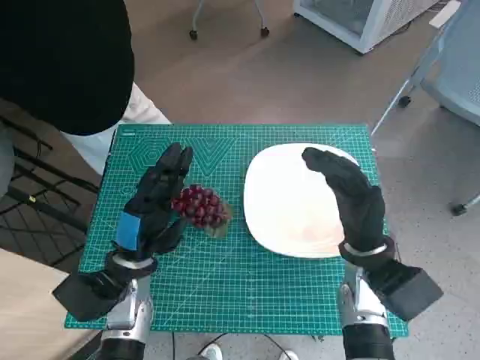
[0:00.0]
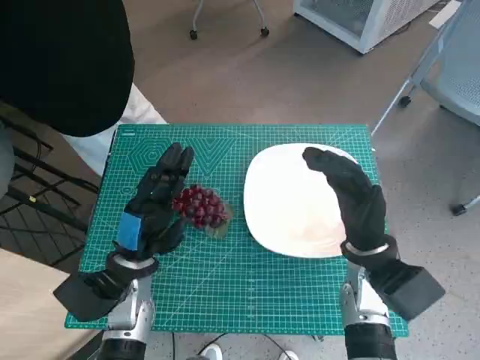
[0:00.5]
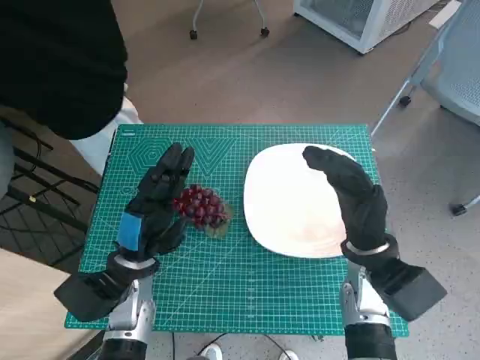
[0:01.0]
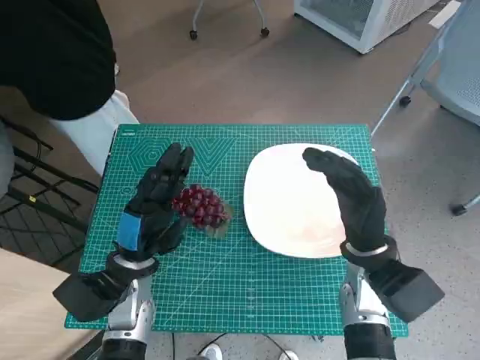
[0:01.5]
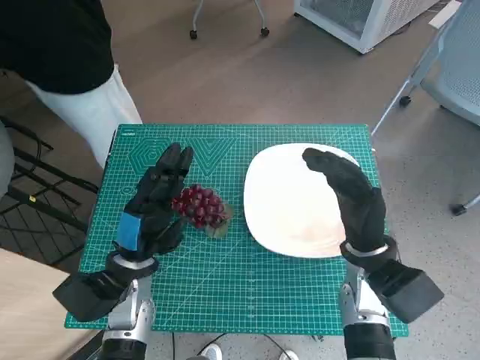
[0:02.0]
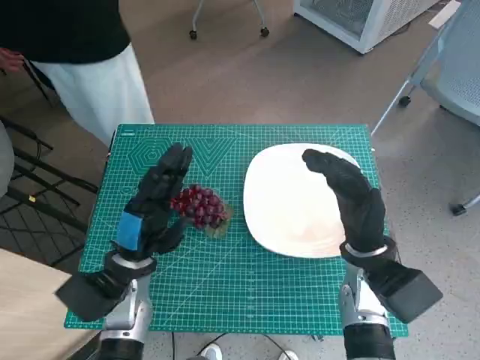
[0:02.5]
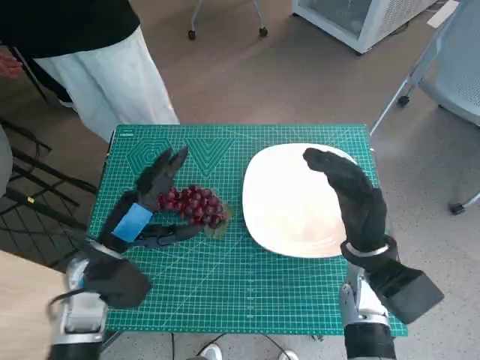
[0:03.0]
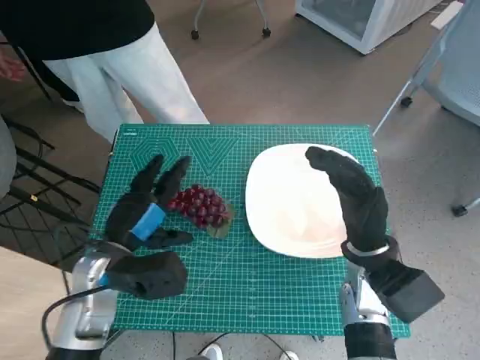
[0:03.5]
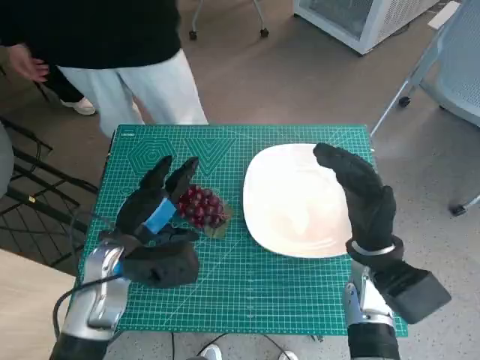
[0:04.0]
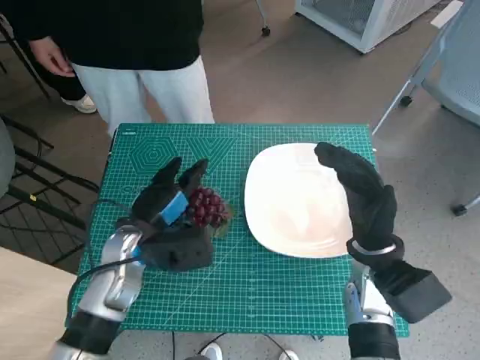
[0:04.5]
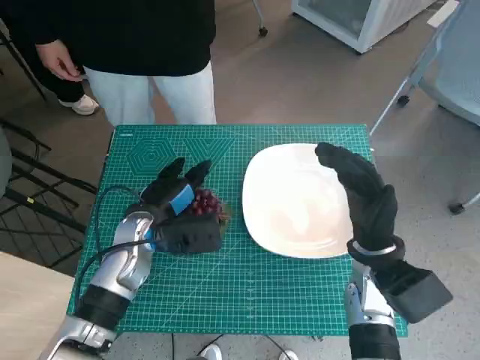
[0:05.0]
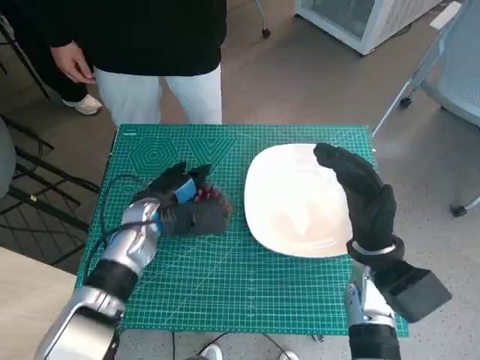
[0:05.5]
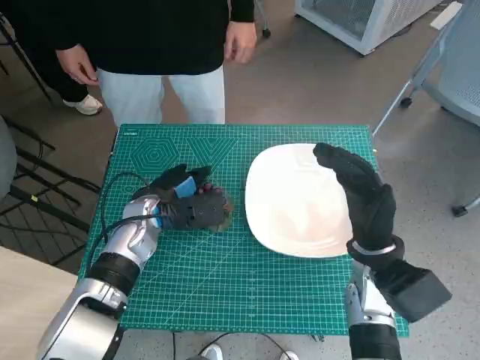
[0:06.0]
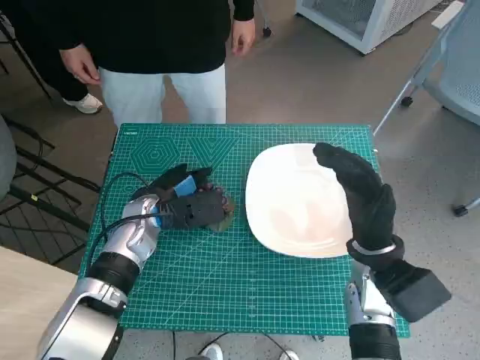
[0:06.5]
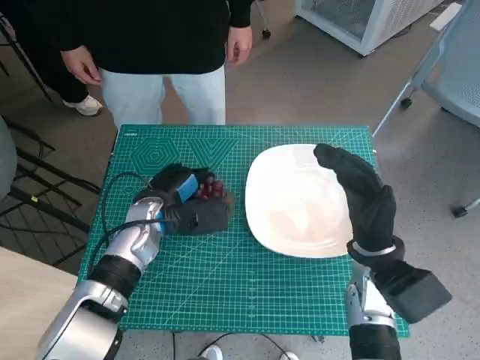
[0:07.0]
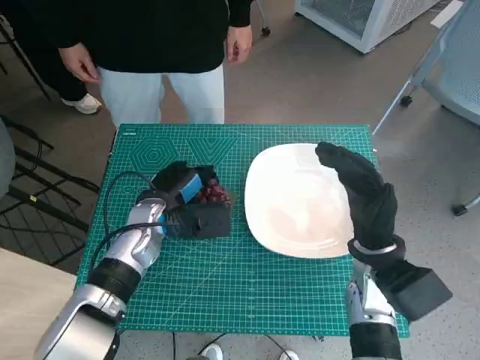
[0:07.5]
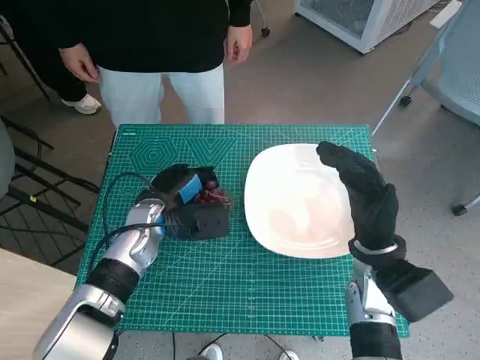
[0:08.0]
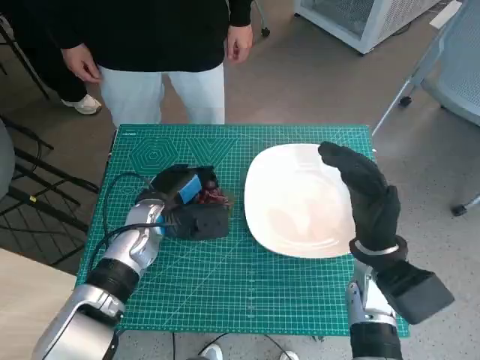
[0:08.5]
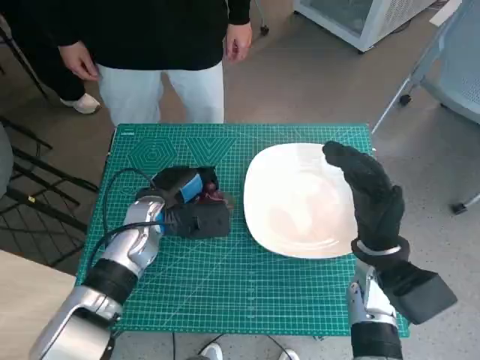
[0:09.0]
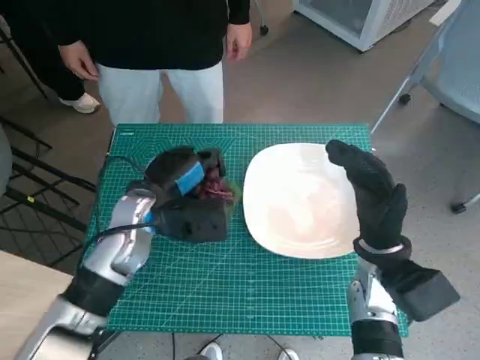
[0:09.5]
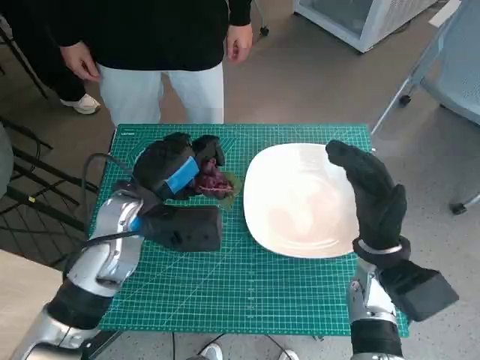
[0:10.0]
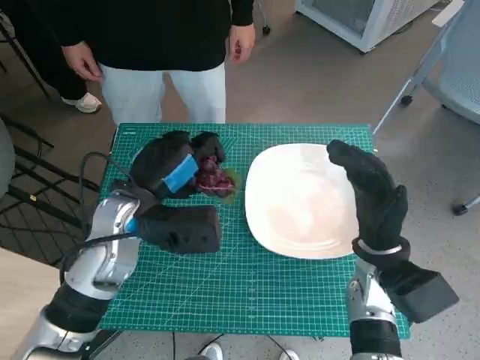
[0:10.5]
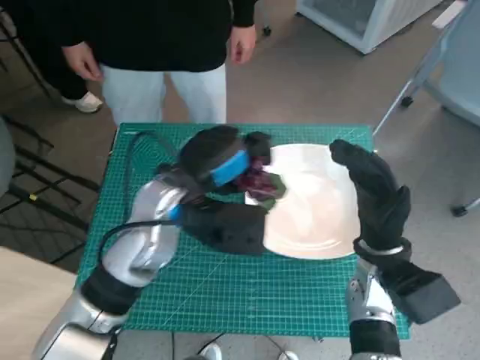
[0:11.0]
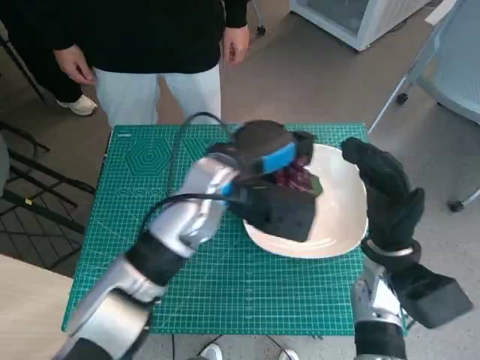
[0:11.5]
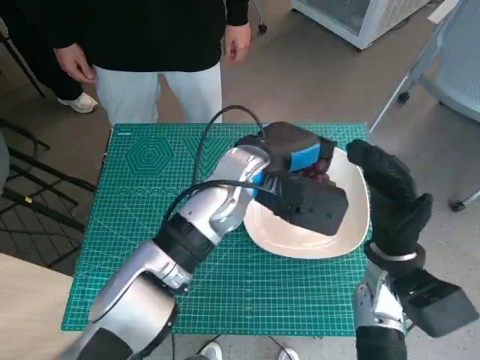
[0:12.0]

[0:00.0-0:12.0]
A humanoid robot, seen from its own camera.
Task of the whole recording: Pick up the grapes and put them on the plate.
Step, 0:00.0 to 0:06.5: Grasp the grapes with left hand.
0:04.0 to 0:06.0: The left hand heads forward, covering some 10 cm.
0:06.0 to 0:08.0: There are only small adjustments of the hands.
0:08.0 to 0:10.0: The left hand goes roughly 10 cm upward.
0:10.0 to 0:12.0: The left hand travels to the right by roughly 15 cm.

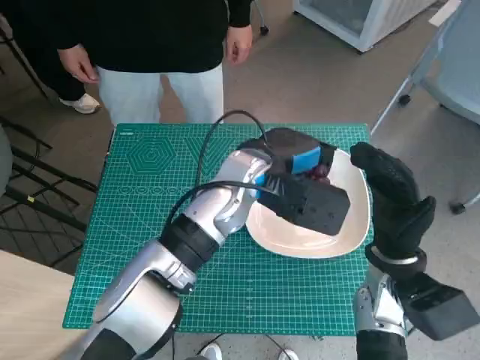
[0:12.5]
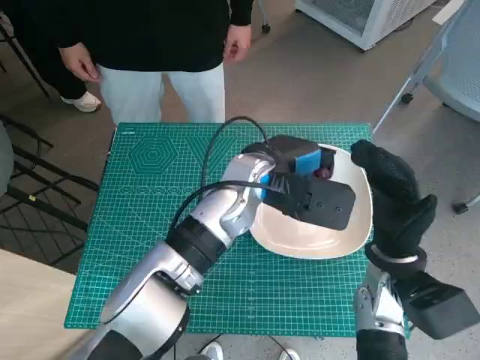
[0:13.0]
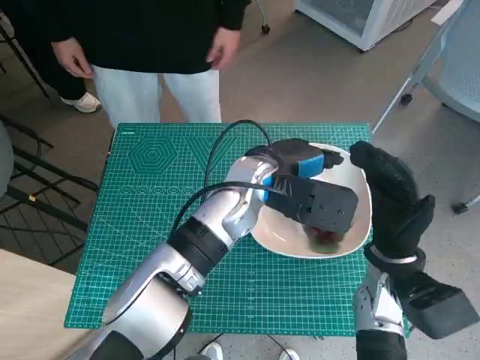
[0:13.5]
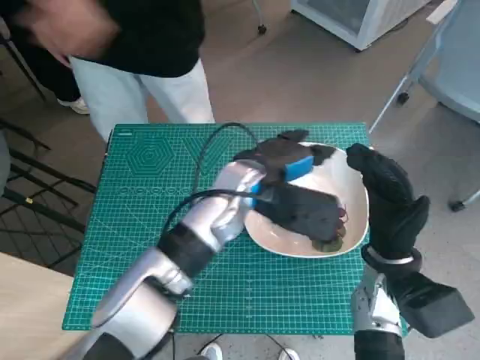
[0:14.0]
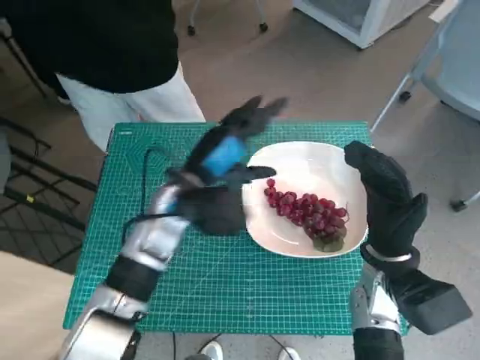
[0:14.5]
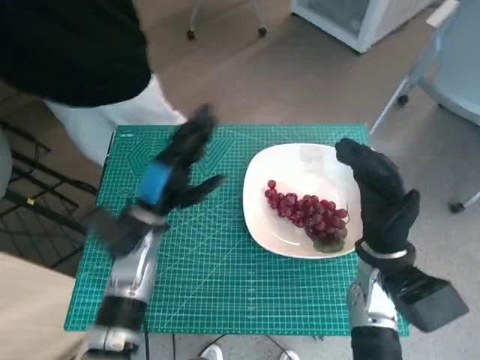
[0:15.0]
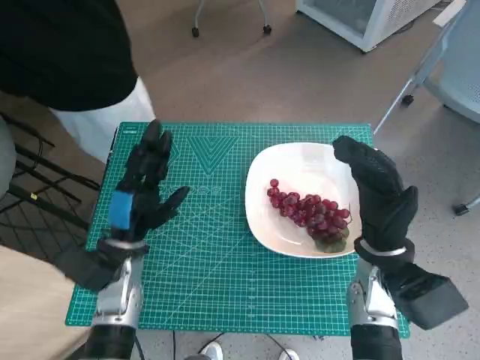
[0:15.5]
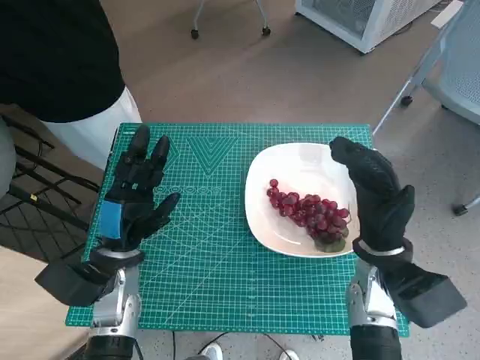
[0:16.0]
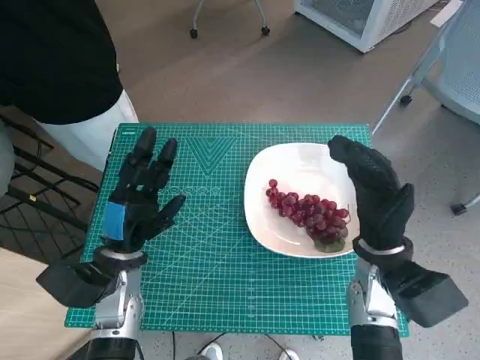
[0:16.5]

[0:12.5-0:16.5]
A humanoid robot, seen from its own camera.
Task of the whole recording: Pick up the grapes and put them on the plate.
0:12.5 to 0:14.5: The left hand moves to the left, roughly 10 cm.
0:14.5 to 0:16.5: The left hand is displaced to the left, downward and backward by some 15 cm.

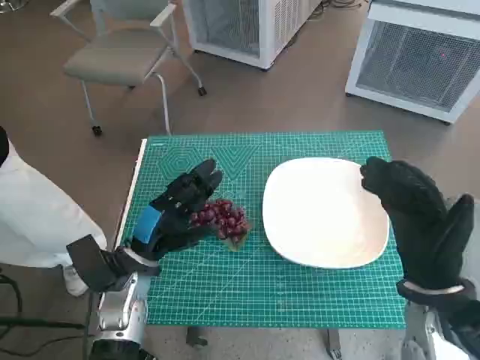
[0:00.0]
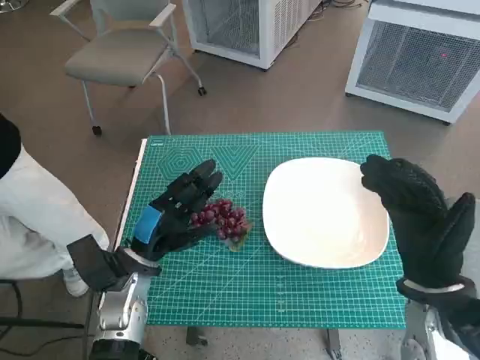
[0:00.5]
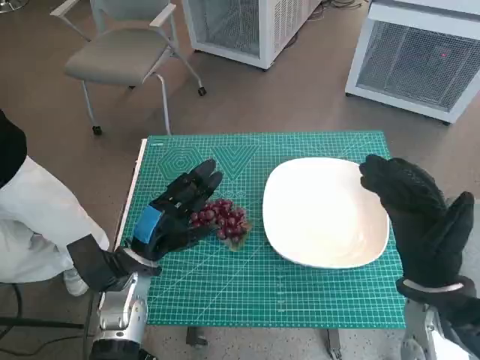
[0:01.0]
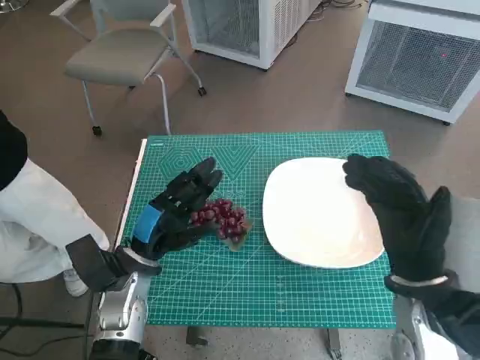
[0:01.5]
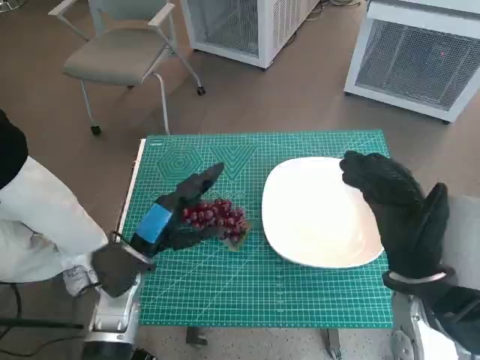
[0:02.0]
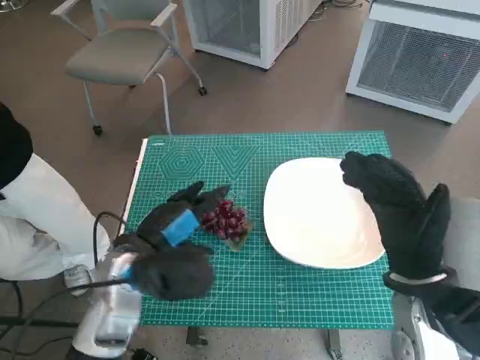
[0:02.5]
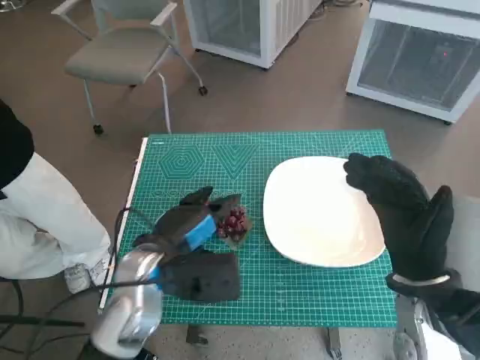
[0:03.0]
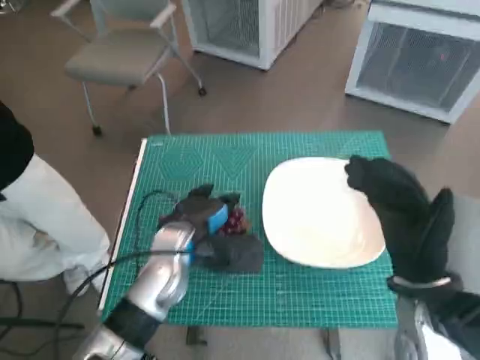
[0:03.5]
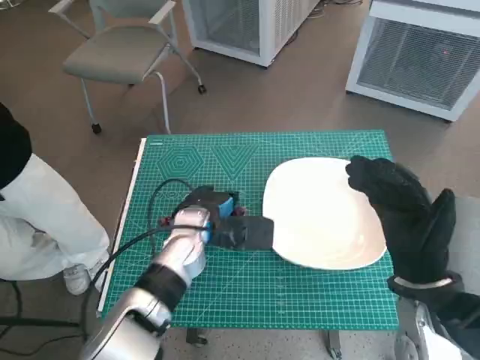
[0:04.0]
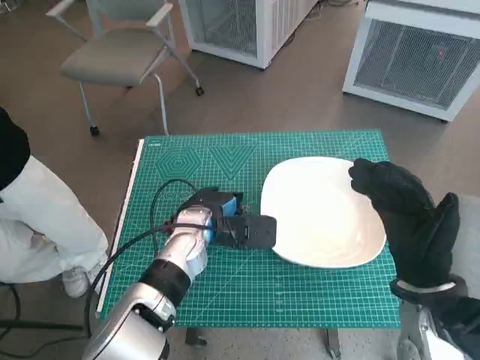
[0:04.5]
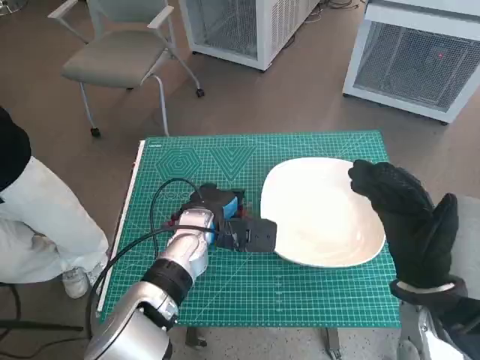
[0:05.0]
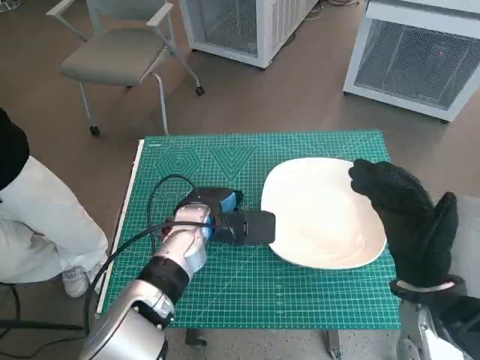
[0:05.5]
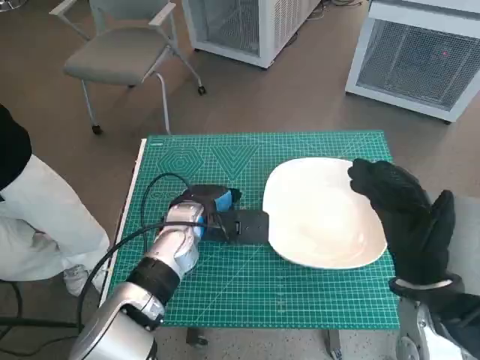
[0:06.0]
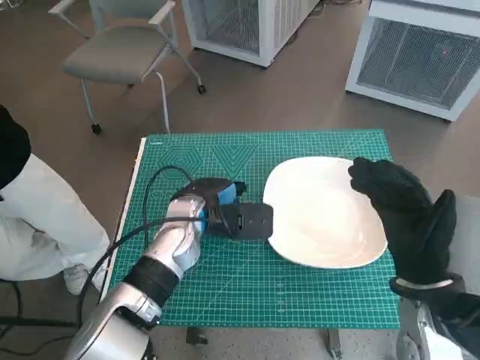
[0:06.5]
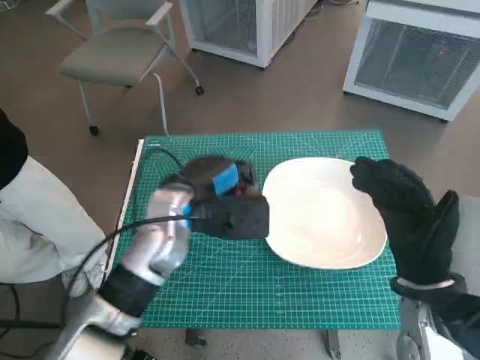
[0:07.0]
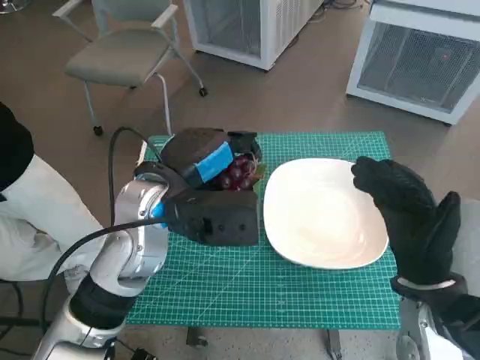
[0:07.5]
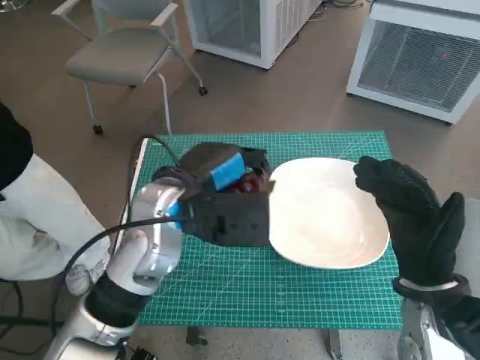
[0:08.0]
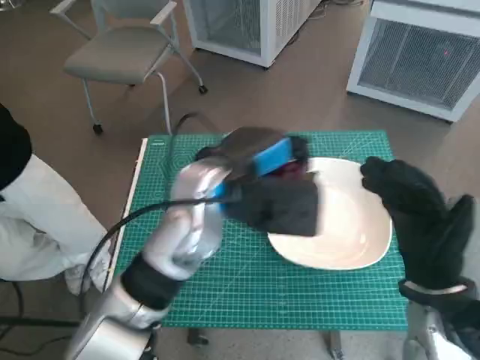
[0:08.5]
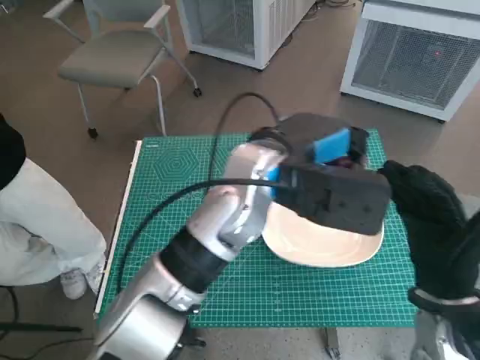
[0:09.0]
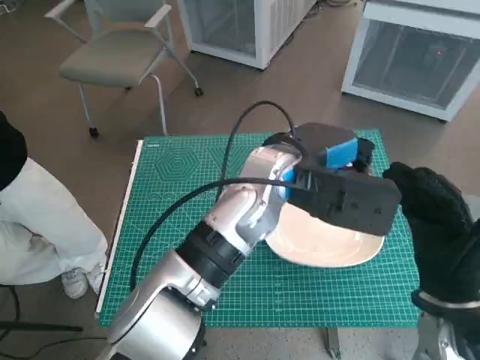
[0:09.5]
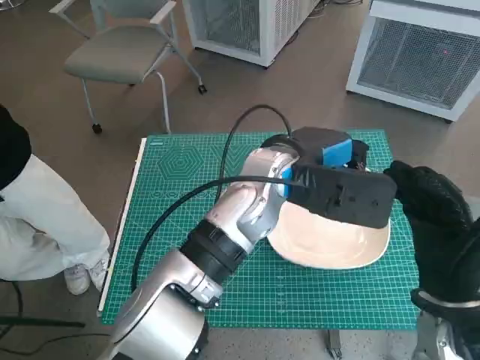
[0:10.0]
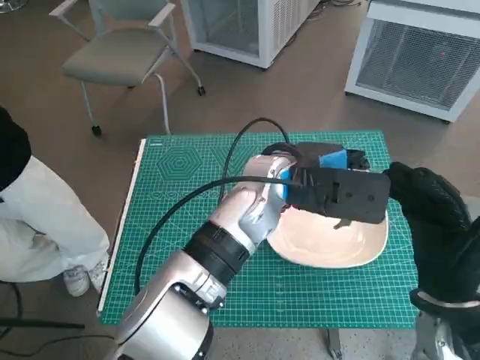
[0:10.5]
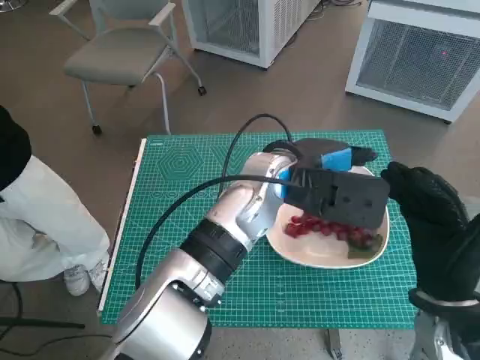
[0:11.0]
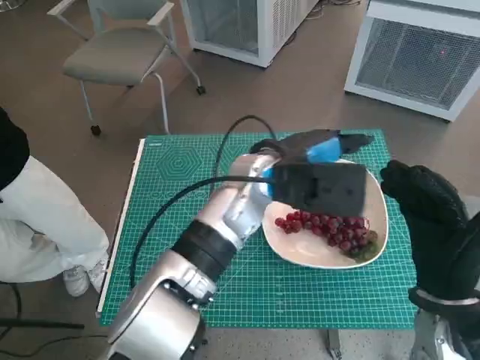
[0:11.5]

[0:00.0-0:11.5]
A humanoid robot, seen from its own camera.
Task of the whole recording: Pick up the grapes and put them on the plate.
Step, 0:00.0 to 0:05.5: Grasp the grapes with left hand.
Step, 0:06.0 to 0:10.5: Place the grapes in the plate with left hand.
0:02.0 to 0:04.0: The left hand moves to the right and forward, approximately 10 cm.
0:04.0 to 0:06.0: Both hands stay put.
0:06.0 to 0:07.5: The left hand is displaced upward and backward by roughly 15 cm.
0:07.5 to 0:09.5: The left hand is displaced to the right by roughly 15 cm.
0:09.5 to 0:11.5: There are only small adjustments of the hands.
